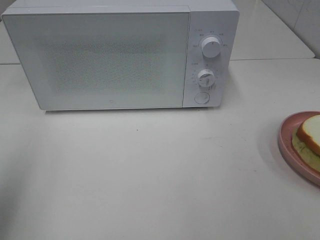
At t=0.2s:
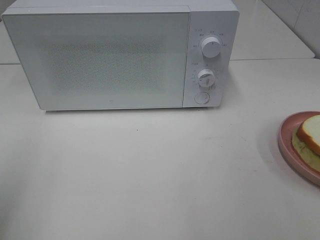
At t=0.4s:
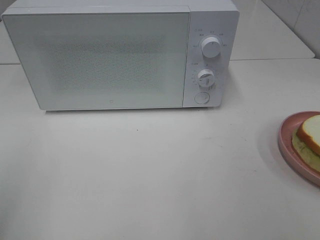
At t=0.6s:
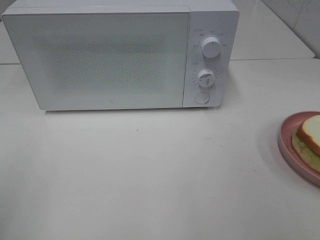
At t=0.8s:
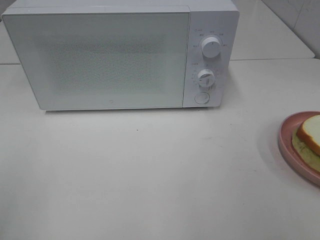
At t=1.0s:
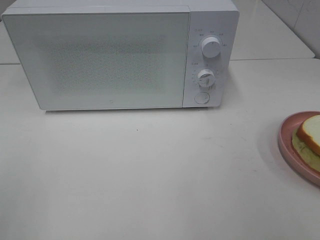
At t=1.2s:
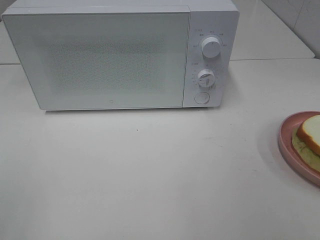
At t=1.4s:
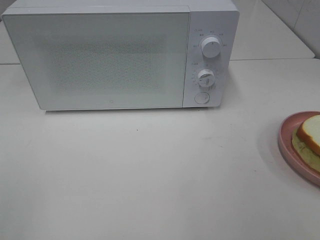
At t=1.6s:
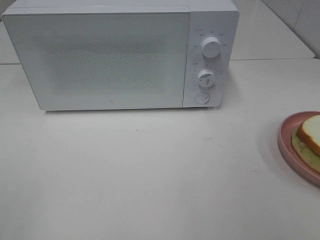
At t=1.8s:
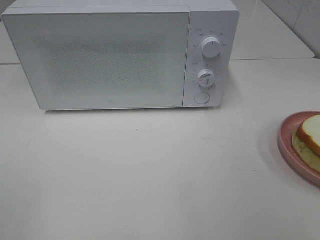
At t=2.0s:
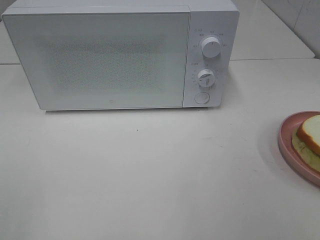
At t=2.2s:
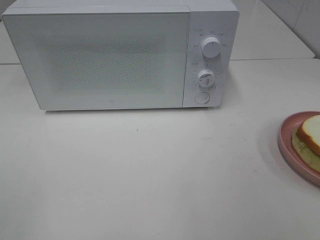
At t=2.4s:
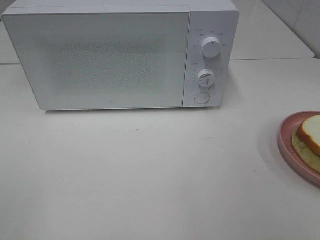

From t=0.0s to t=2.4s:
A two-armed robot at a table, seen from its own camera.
Task of the whole recording: Heat Sandwich.
From t=0.0s to t=1.2s: The left gripper is displaced backward by roughly 10 cm.
